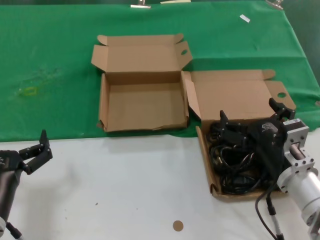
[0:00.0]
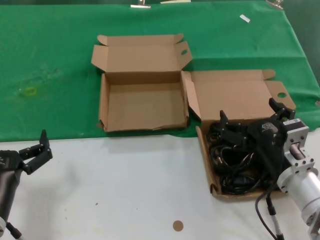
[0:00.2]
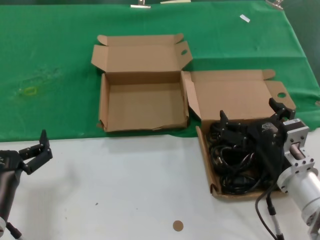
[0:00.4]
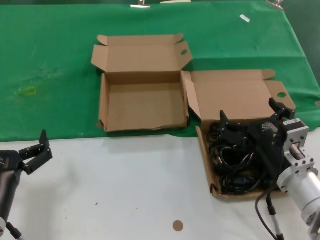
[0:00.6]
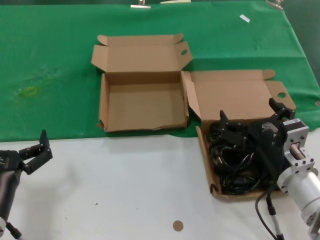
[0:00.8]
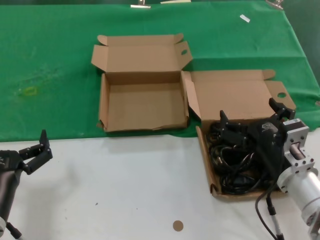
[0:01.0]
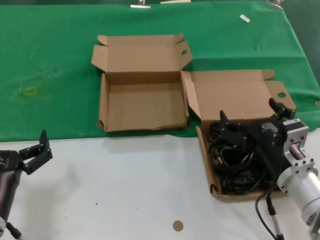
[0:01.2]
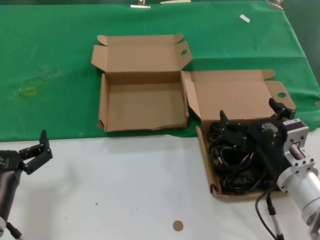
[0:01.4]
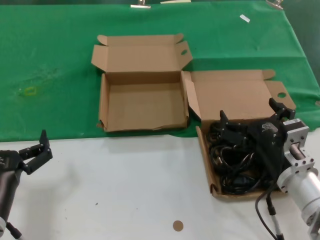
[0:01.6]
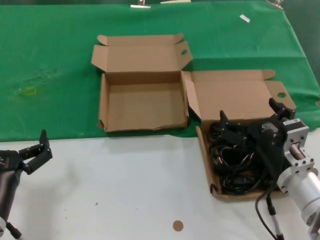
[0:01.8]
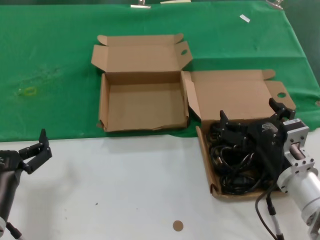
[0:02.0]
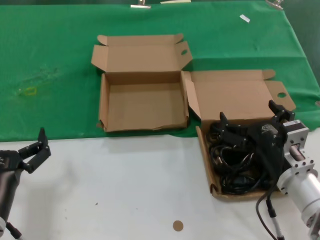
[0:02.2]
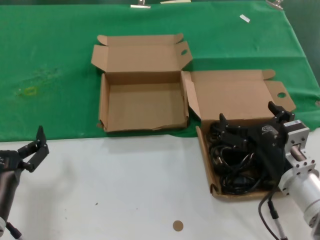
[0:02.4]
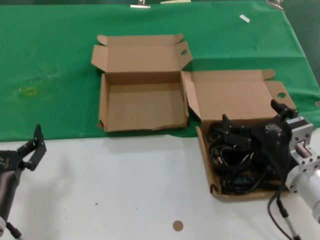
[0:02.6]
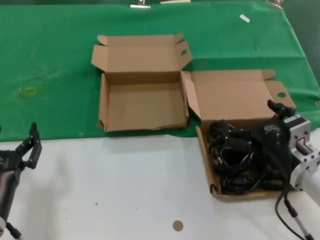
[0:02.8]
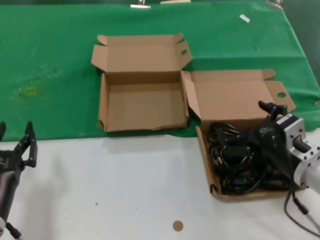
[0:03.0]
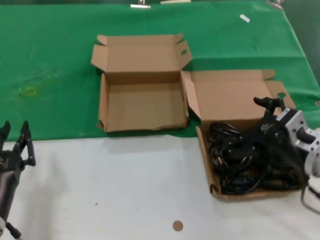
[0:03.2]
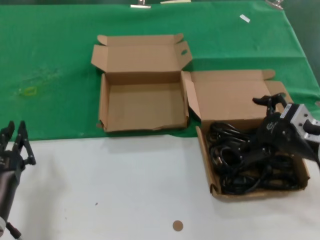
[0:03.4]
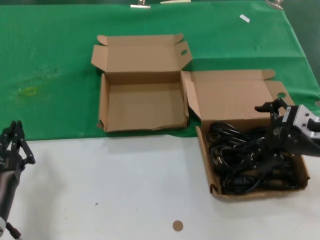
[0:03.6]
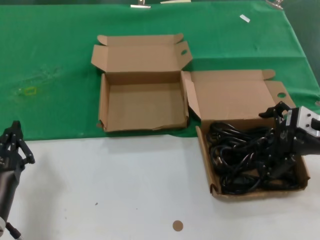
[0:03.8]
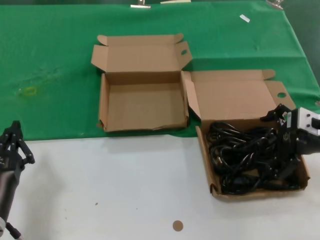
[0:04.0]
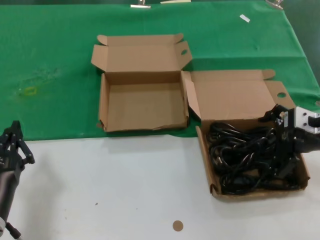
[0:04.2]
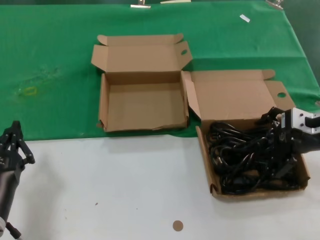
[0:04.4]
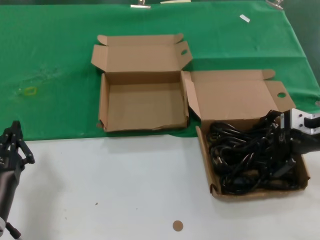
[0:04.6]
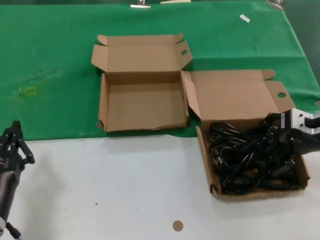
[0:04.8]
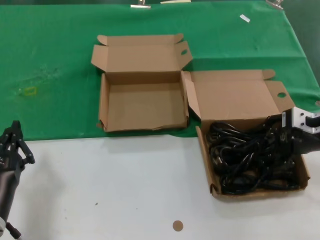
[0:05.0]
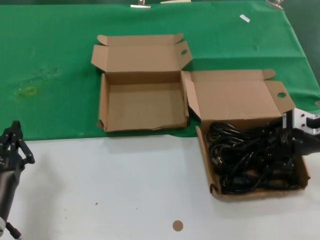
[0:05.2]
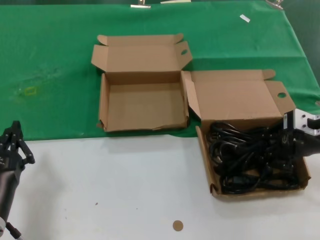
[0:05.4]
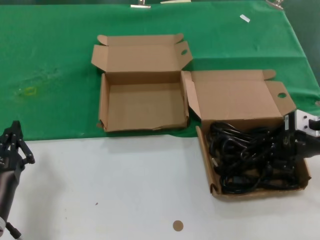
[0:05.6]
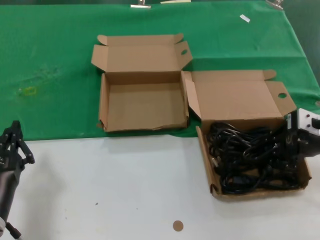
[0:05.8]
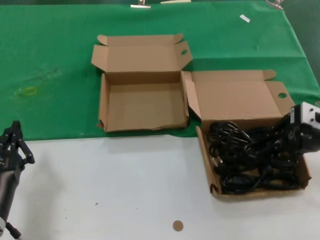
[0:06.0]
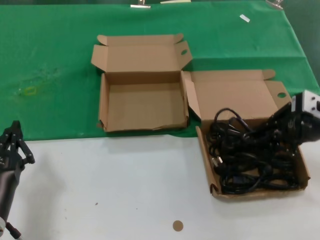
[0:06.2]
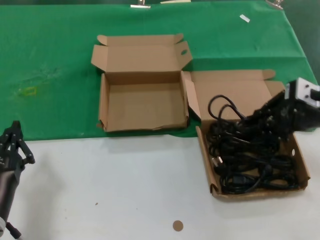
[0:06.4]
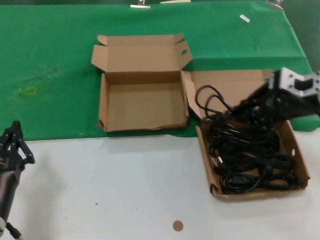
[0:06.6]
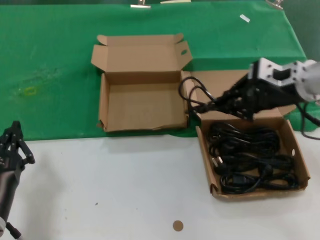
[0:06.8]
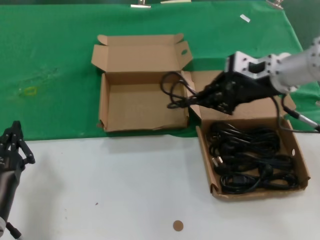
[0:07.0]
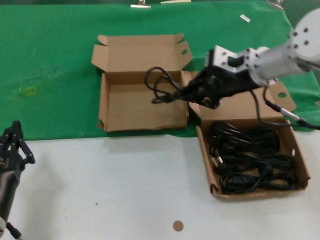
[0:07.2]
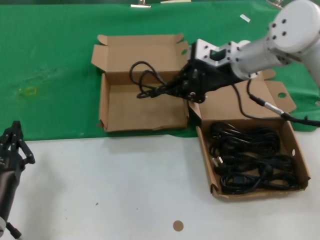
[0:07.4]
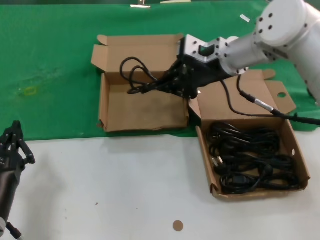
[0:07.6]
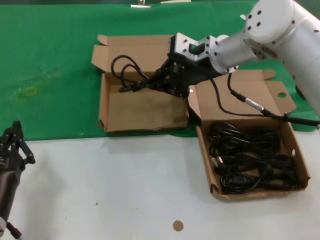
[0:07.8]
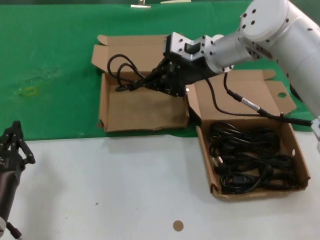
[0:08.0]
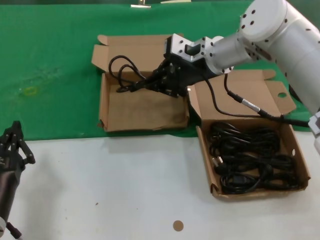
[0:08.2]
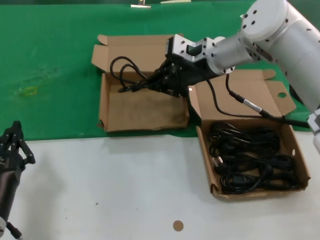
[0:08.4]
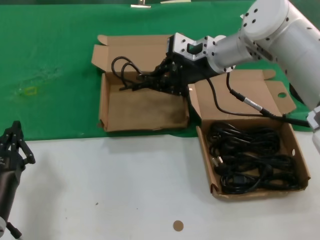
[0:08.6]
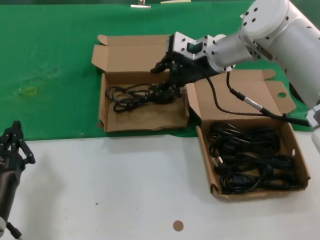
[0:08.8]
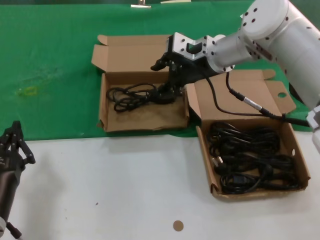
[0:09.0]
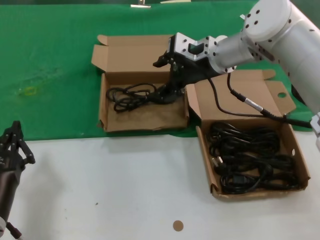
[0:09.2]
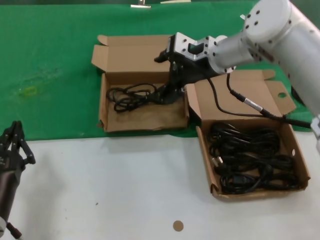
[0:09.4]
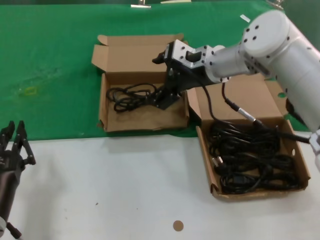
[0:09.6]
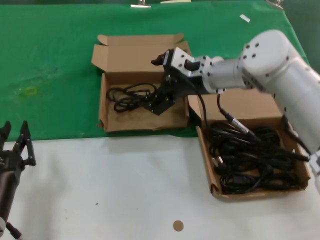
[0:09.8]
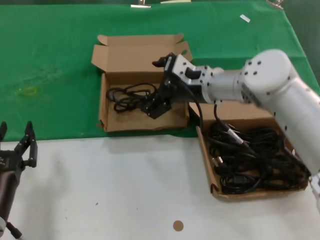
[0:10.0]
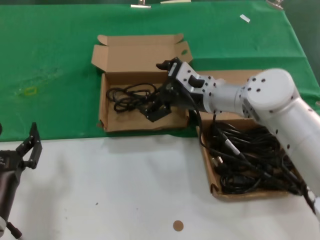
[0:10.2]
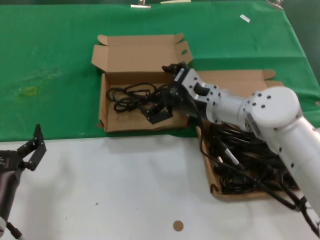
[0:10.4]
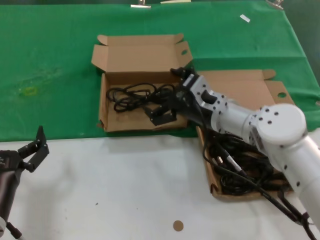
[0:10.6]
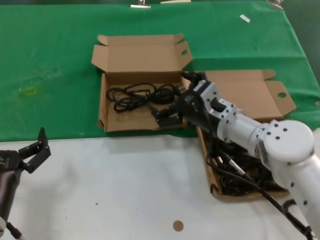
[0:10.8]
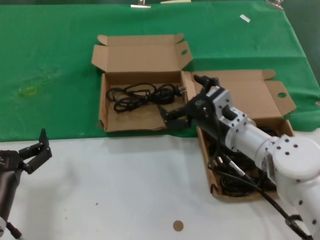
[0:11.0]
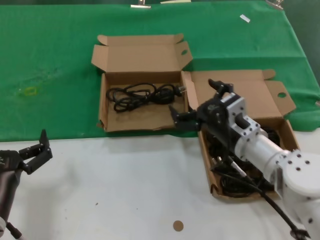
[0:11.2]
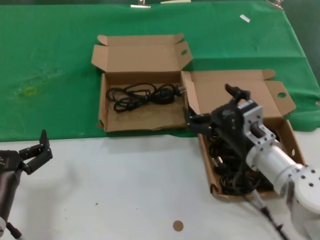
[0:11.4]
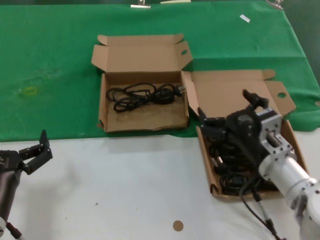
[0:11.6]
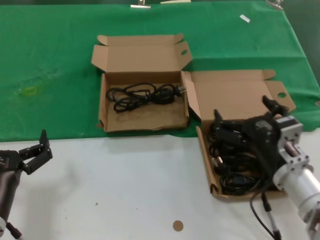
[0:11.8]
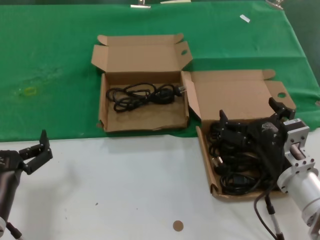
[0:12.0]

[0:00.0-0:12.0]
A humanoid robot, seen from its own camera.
Task of the whole recording: take the parts from the box containing them and put them into an empty box.
Step, 0:00.0 to 0:05.6: Grasp the data cable.
Step, 0:05.8 to 0:08.8: Place the data cable in the another box.
0:00.0 to 0:01.6: Neither hand changes place.
0:01.6 to 0:03.0: The hands move only a little.
0:03.0 to 0:04.4: The right hand moves upward, forward and to the right, approximately 15 cm.
0:04.4 to 0:06.0: The hands stay close to where they were, moving slightly.
0:06.0 to 0:07.6: The right hand is displaced to the left and forward by roughly 25 cm.
0:07.6 to 0:09.0: The hands stay close to where they were, moving slightly.
0:09.0 to 0:10.4: The right hand heads downward and backward, covering some 15 cm.
0:10.4 to 0:12.0: The right hand shifts some 20 cm backward, downward and to the right.

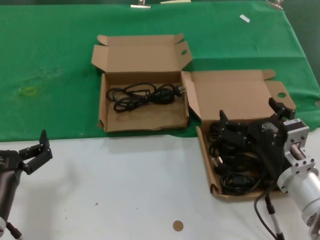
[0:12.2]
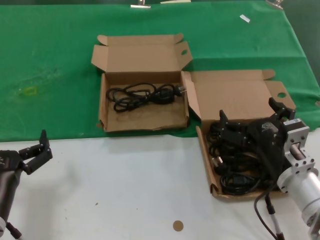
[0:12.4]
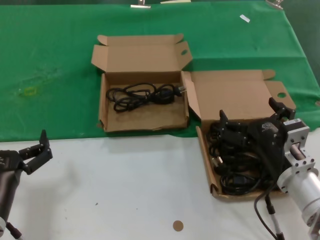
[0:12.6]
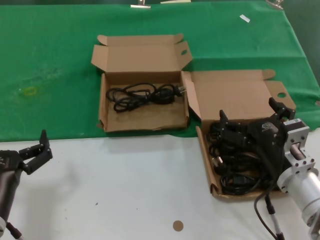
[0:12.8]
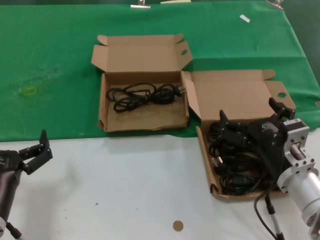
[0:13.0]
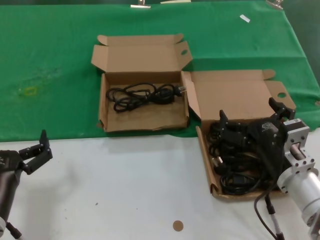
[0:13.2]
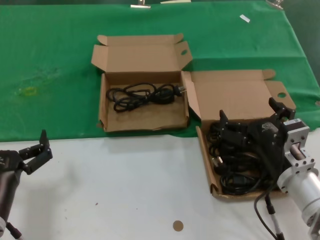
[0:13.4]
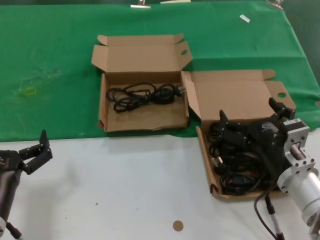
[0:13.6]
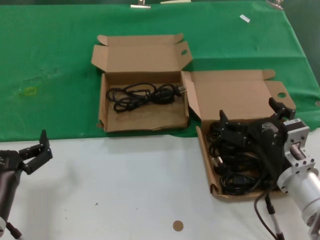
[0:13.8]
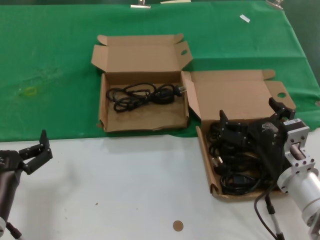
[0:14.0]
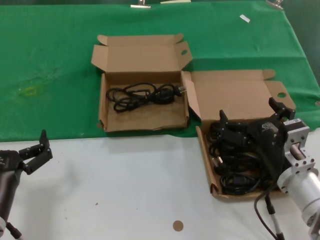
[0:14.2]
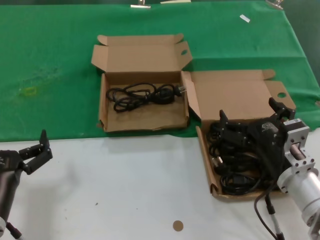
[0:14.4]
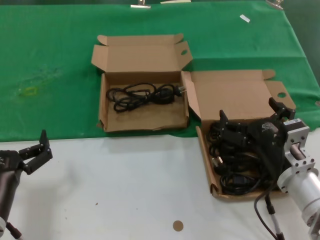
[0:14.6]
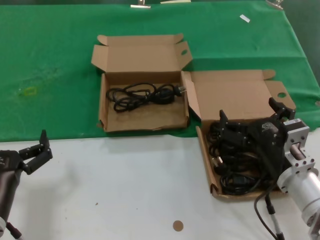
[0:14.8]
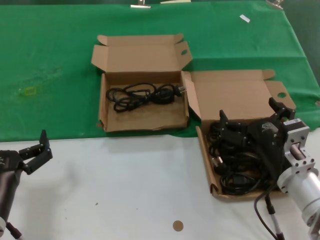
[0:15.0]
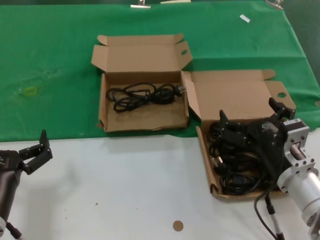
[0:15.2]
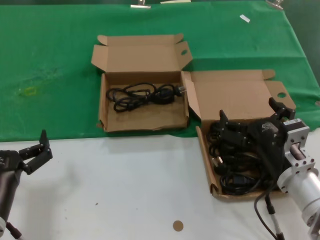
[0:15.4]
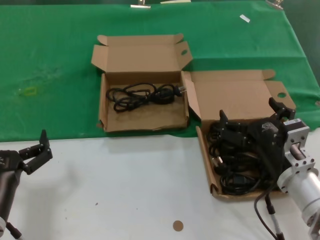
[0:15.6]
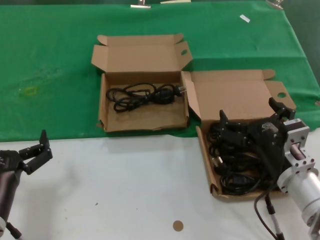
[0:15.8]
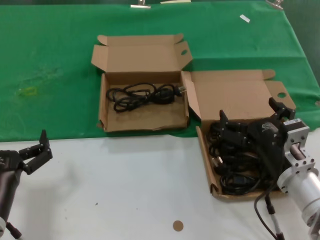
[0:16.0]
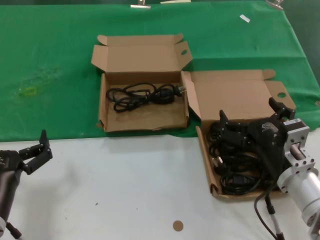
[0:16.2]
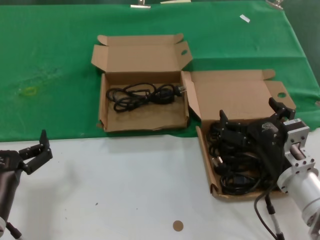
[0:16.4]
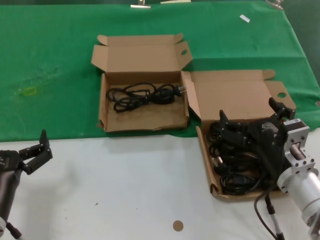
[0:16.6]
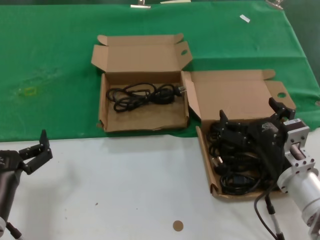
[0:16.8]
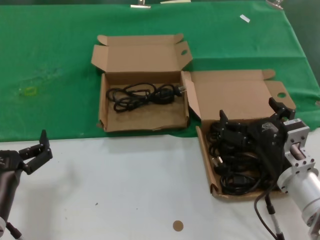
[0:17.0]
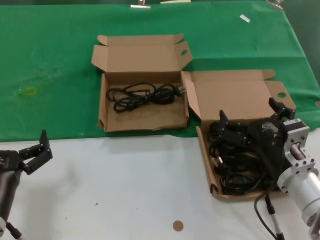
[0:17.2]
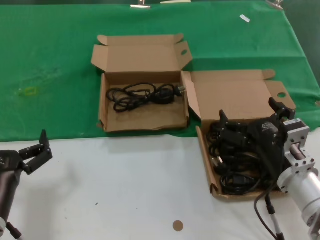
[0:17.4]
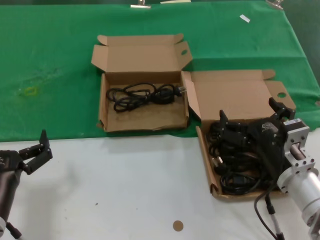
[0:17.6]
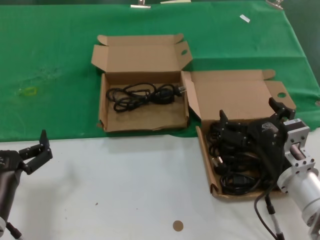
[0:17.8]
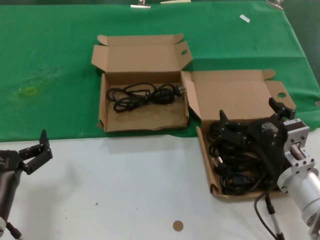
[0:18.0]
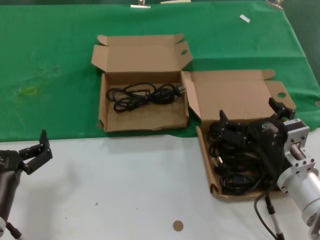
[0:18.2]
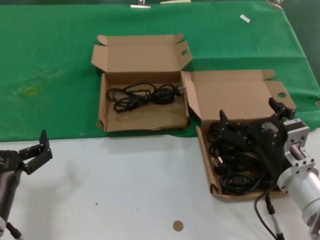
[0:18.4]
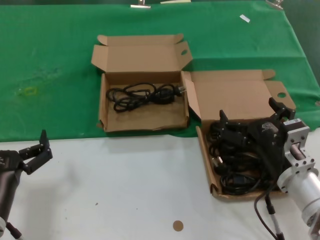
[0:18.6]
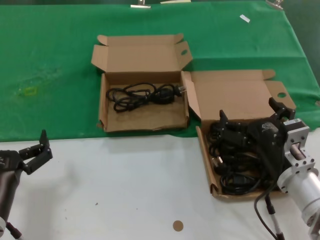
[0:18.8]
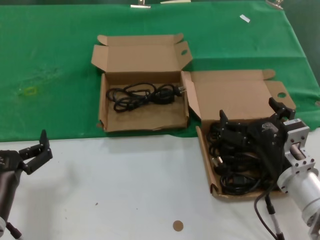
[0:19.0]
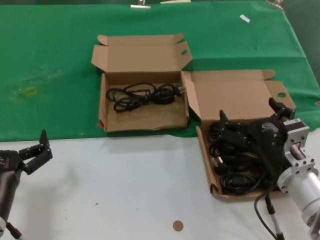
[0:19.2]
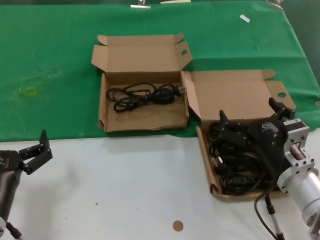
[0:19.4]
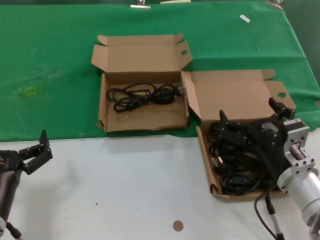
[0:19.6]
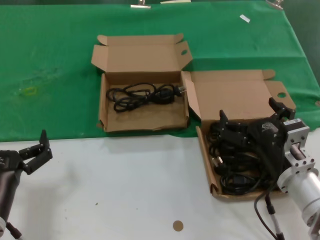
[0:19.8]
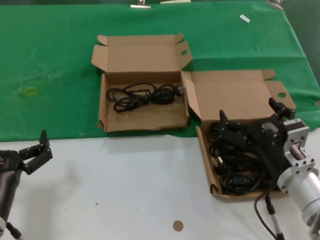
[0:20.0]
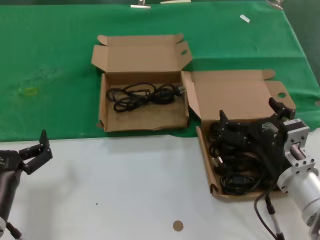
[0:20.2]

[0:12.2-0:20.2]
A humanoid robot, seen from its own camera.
Task of the whole recording: take the parts from the box containing them and put them into an empty box.
0:12.2 to 0:20.2: Neither hand changes place.
